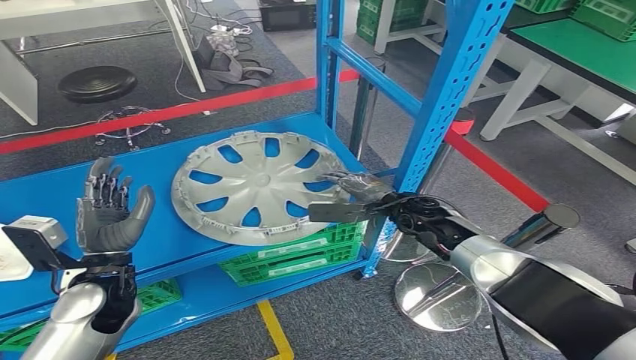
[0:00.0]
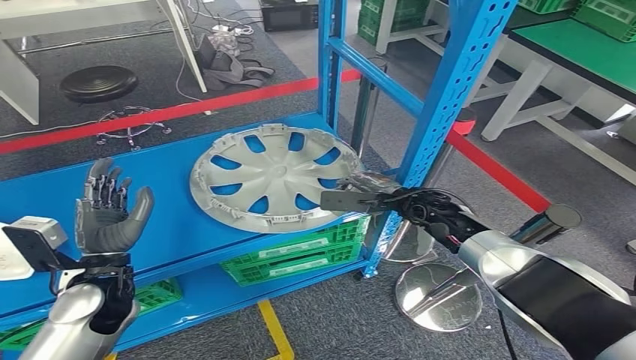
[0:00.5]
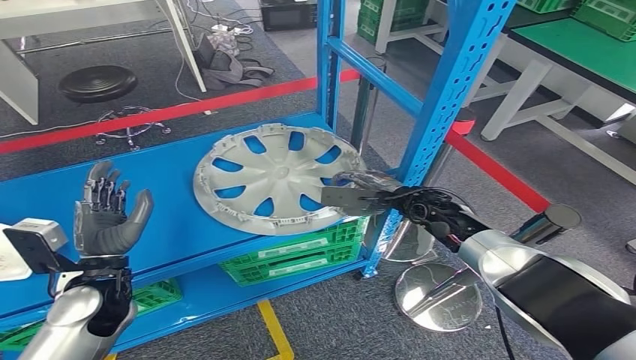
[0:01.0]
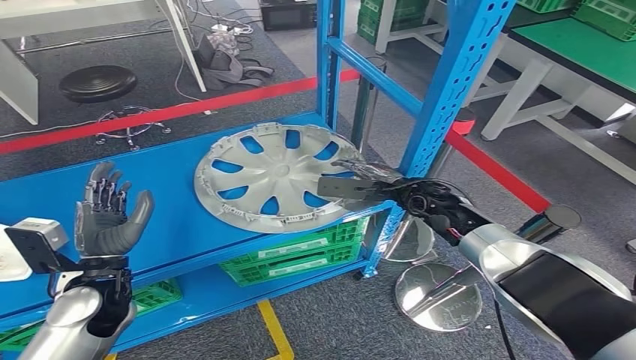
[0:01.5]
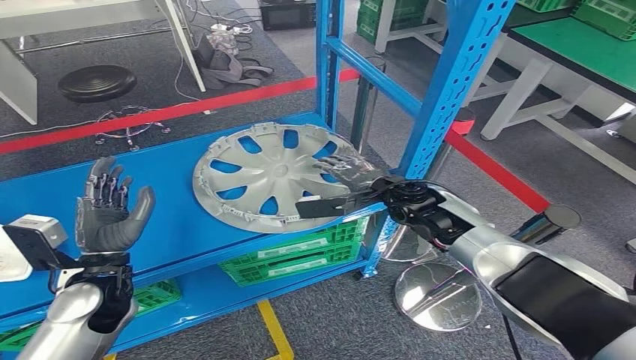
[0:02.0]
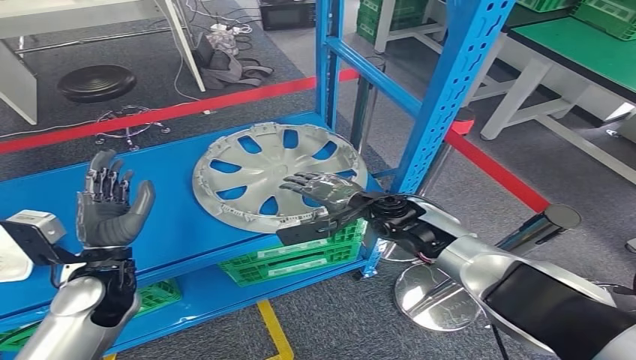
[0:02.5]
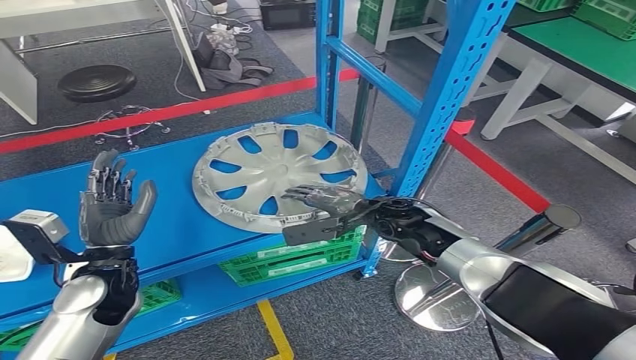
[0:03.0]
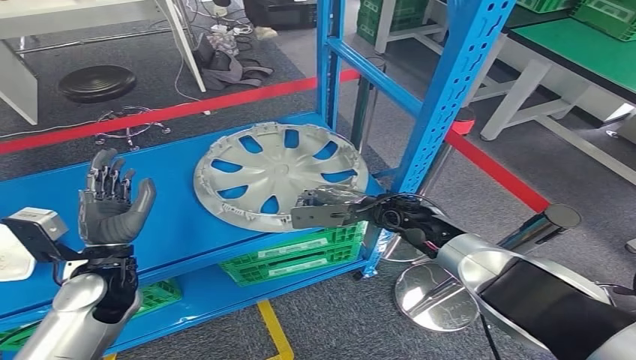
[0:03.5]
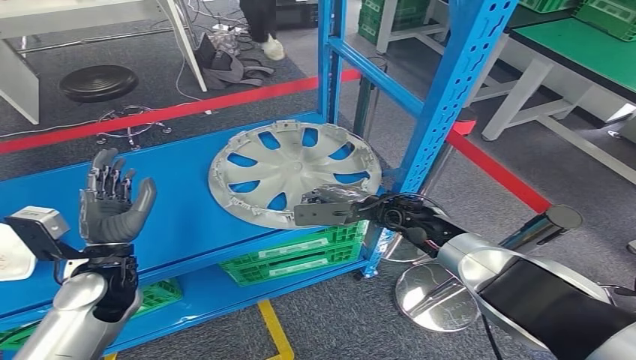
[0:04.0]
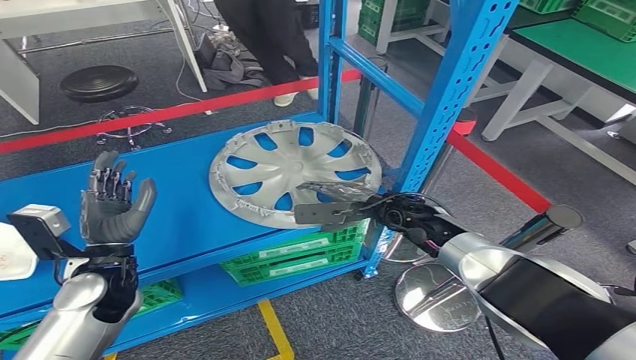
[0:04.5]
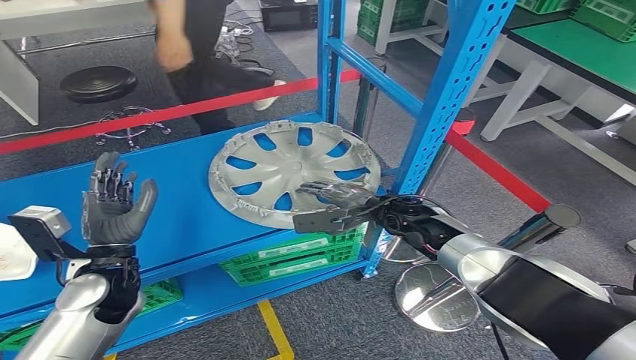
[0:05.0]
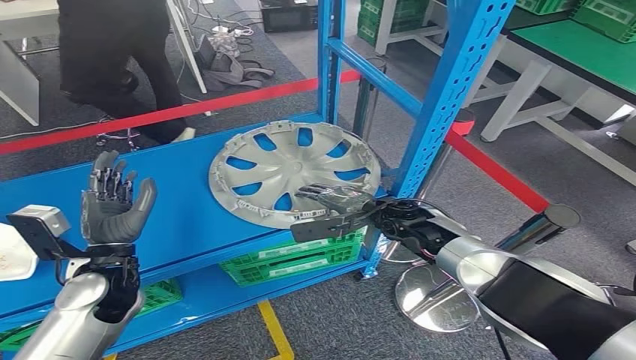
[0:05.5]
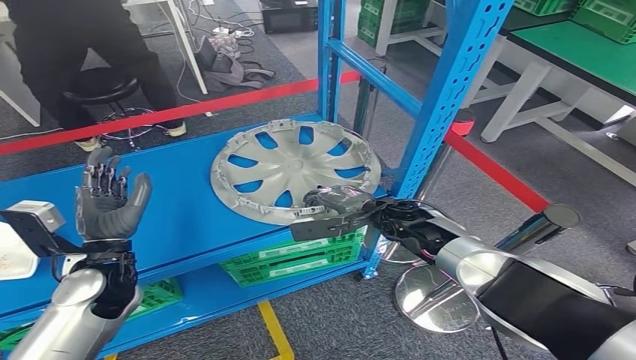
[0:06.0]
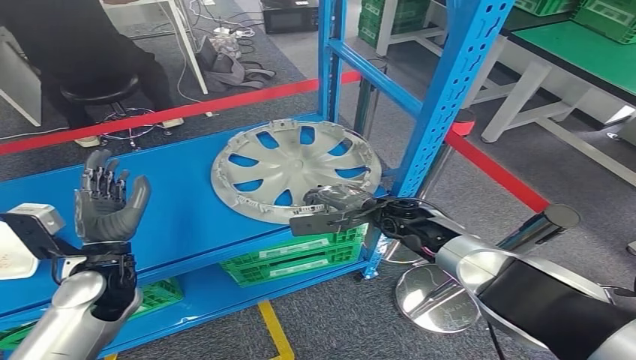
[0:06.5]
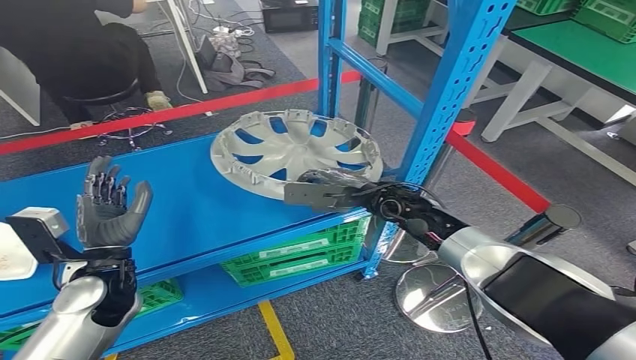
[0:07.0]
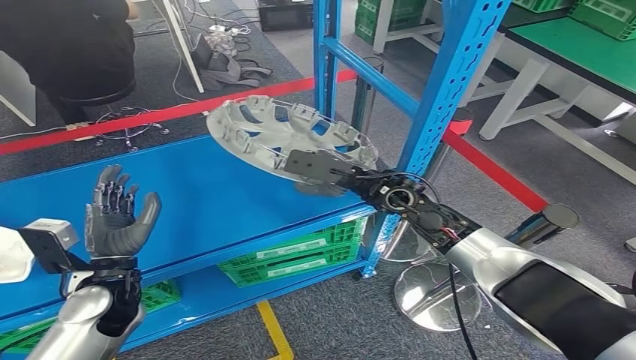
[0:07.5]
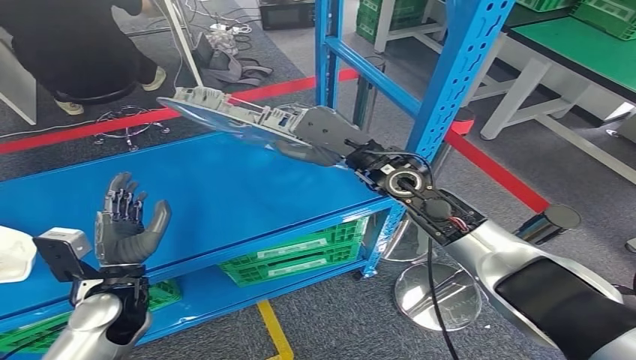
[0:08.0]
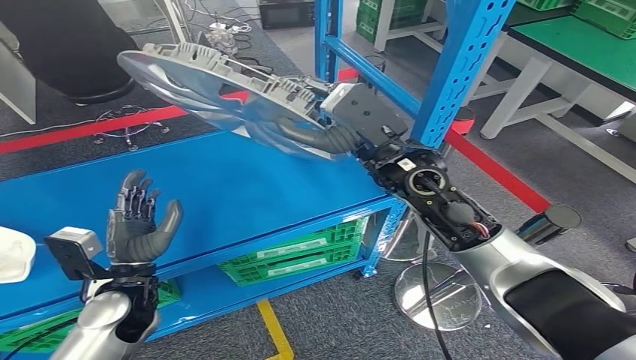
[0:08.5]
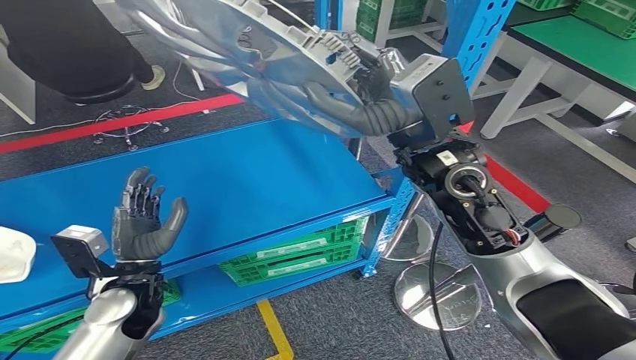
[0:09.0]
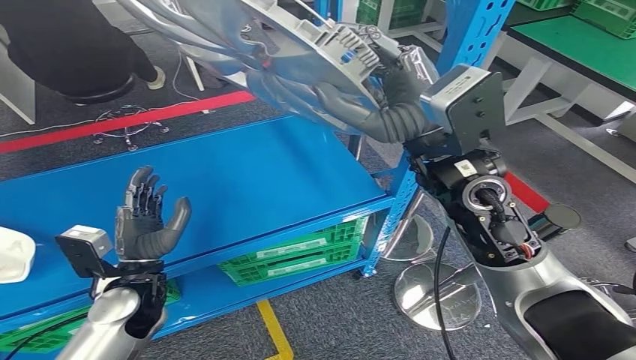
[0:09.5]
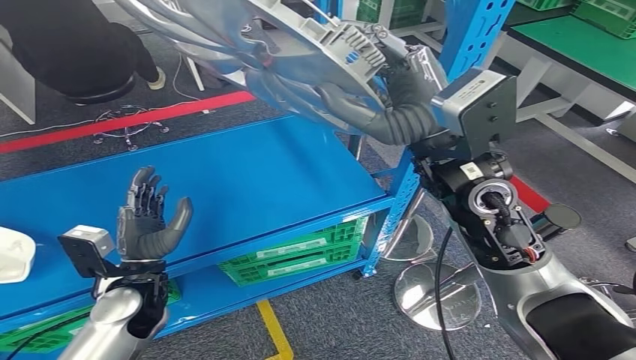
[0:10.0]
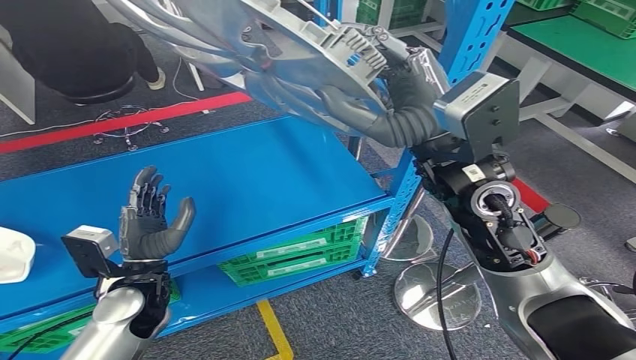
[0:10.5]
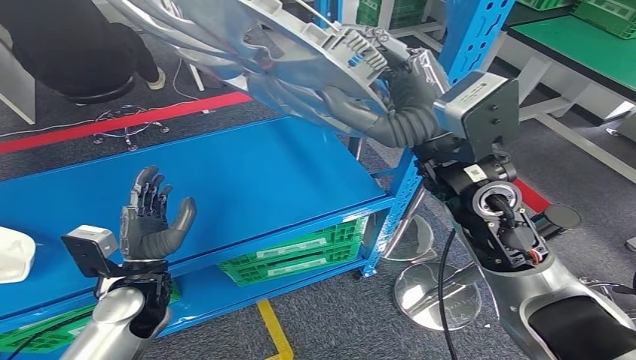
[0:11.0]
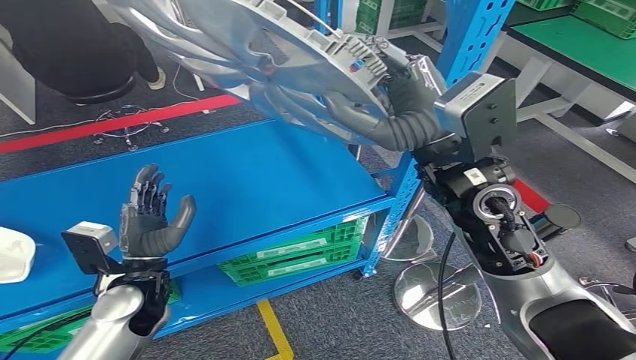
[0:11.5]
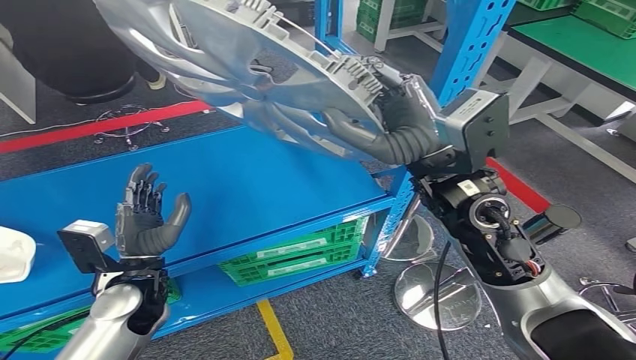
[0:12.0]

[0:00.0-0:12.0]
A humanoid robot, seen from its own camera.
Step, 0.0 to 9.0 s: Pick up the small parts from the shelf.
0.0 to 2.0 s: The right hand shifts by approximately 5 cm.
10.0 to 12.0 s: The hands make only small movements.

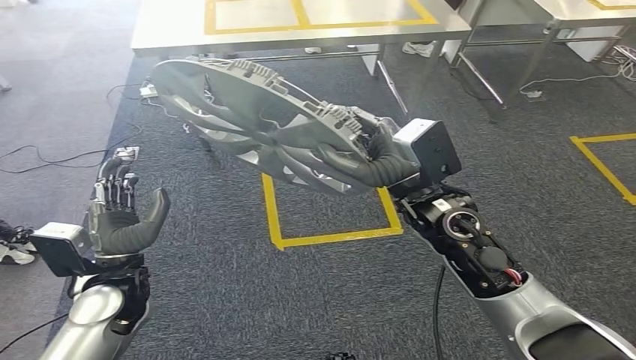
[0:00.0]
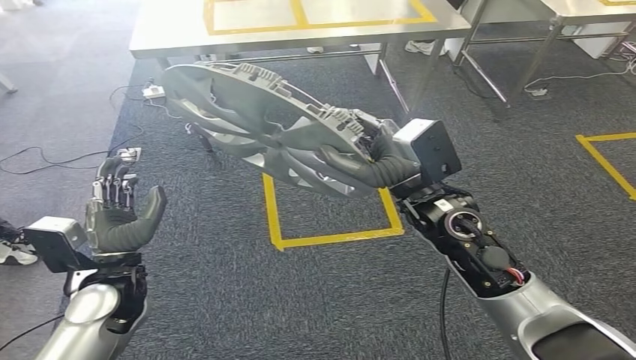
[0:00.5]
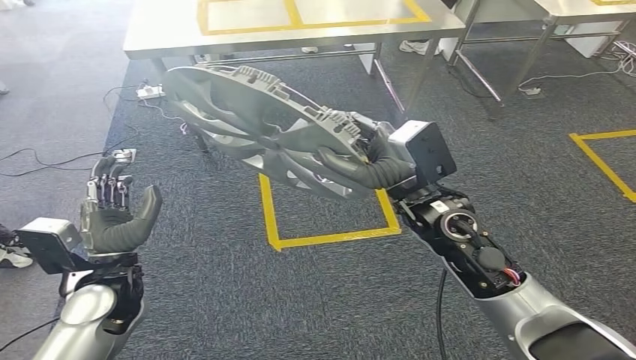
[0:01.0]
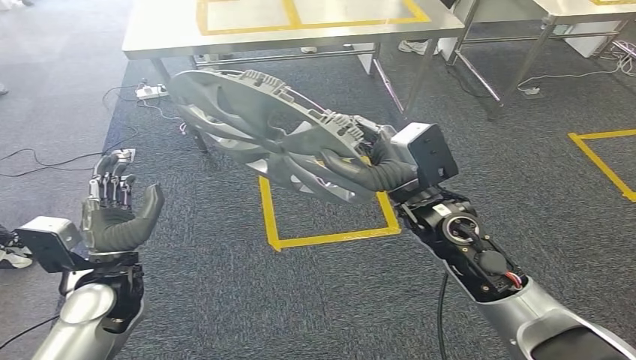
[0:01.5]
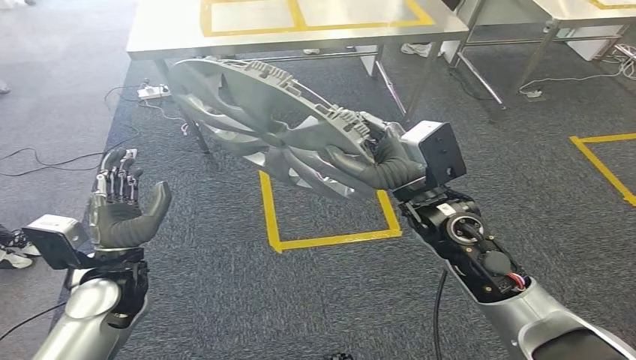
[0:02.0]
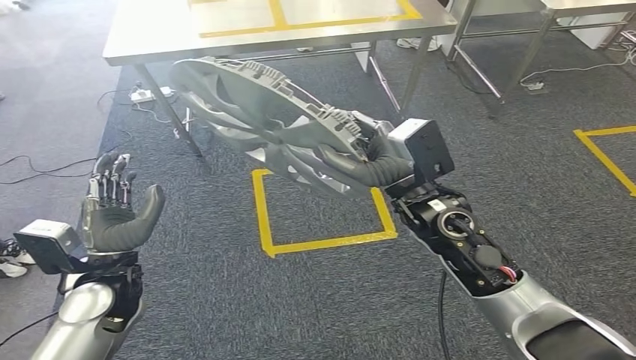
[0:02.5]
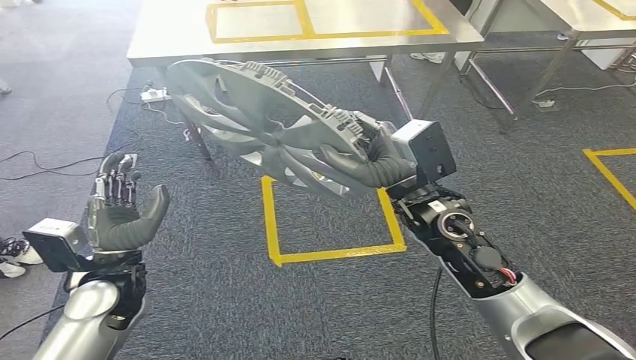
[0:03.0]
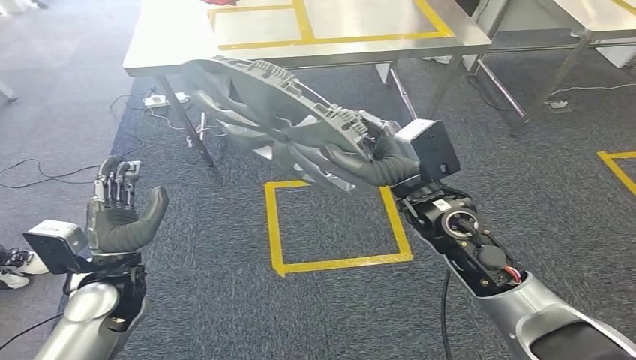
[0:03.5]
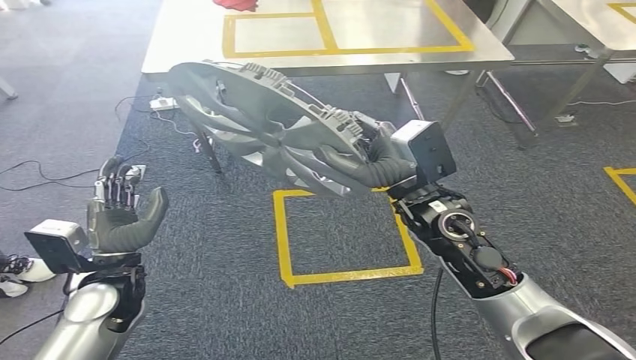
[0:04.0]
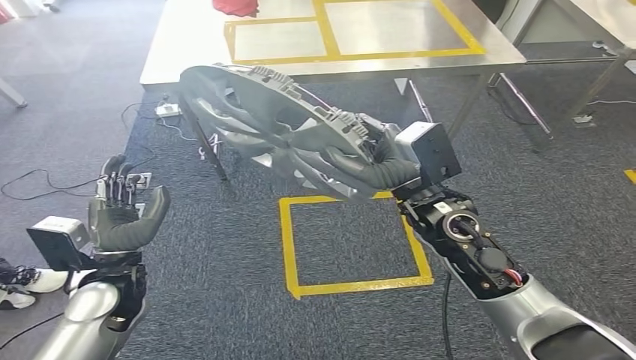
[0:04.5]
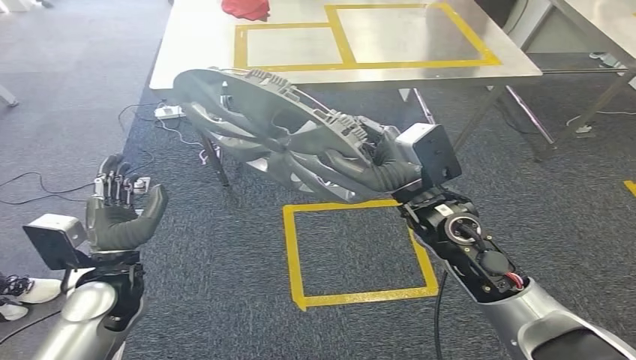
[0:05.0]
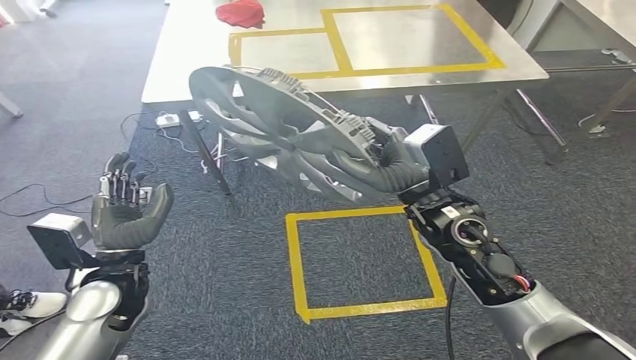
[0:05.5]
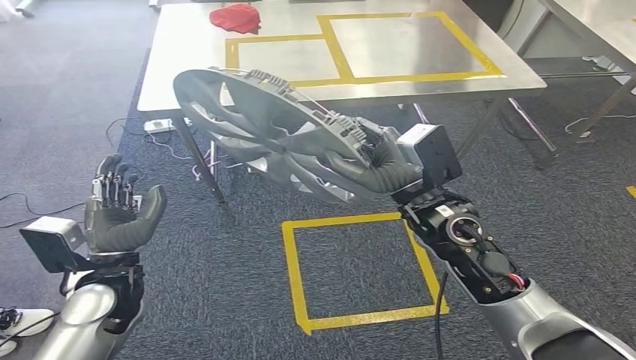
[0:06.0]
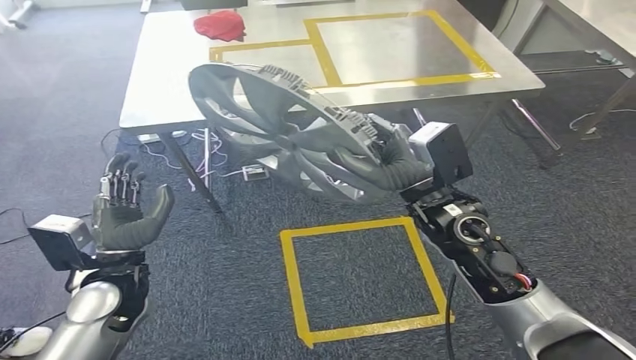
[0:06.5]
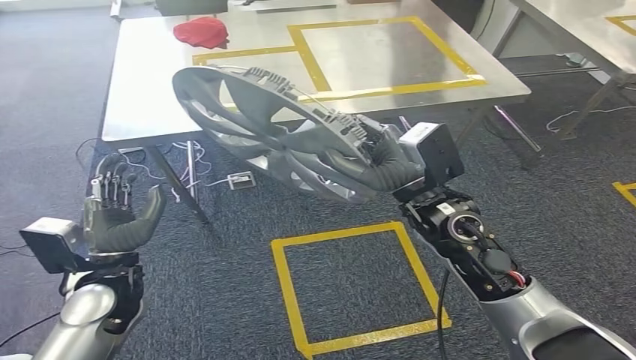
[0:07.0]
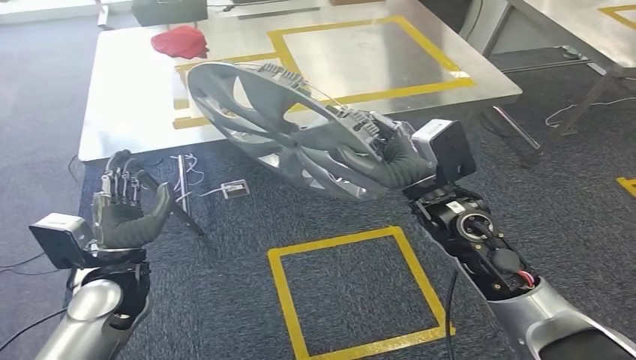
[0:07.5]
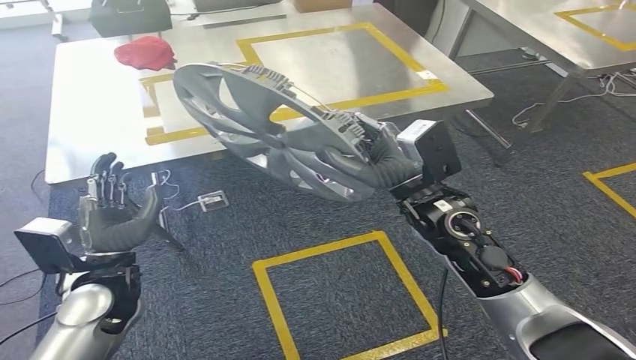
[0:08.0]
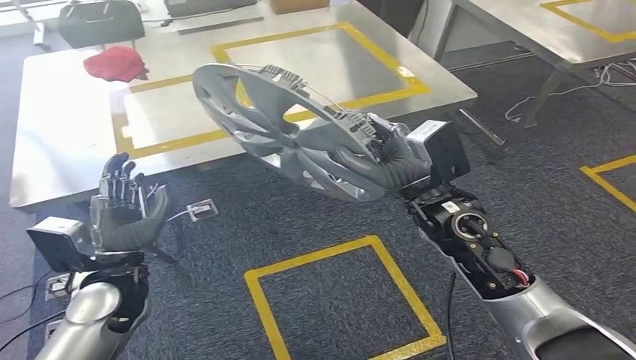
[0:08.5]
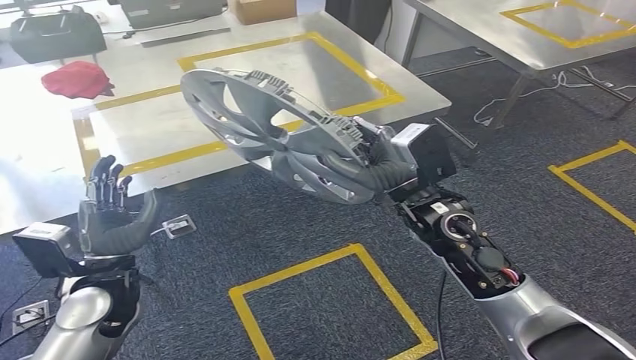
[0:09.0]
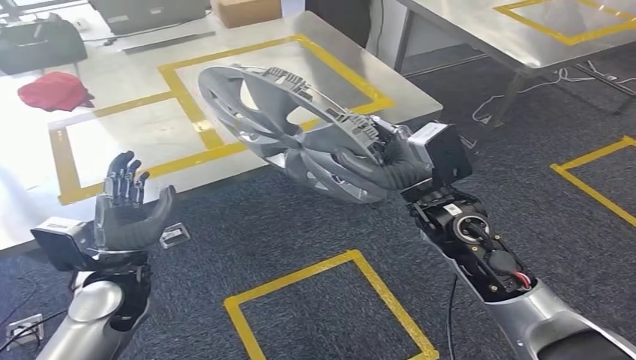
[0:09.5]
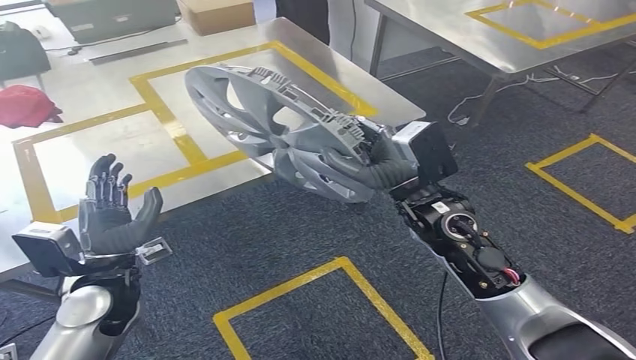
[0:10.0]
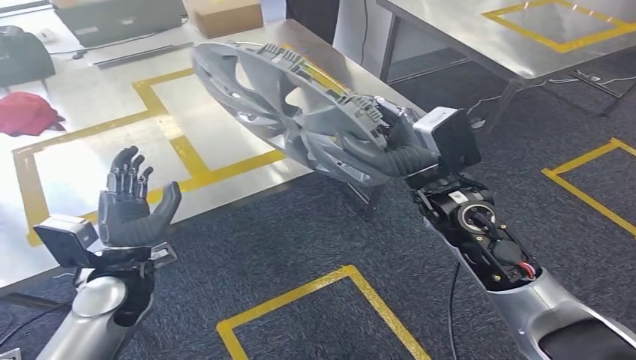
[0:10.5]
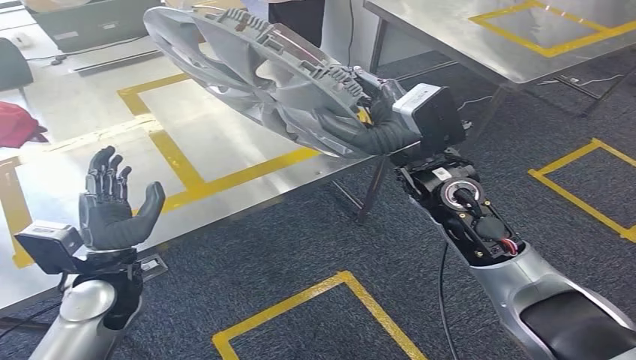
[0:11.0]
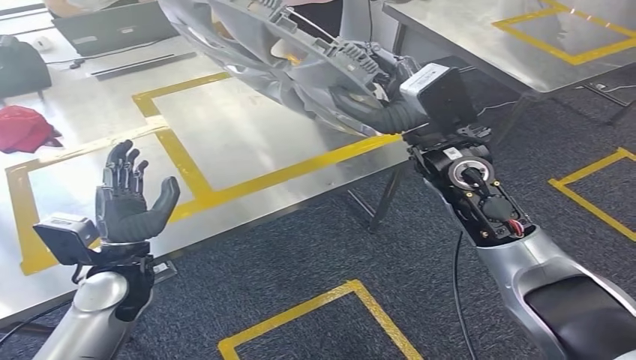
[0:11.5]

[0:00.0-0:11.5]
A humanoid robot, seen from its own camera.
0.0 to 2.0 s: The hands make only small movements.
